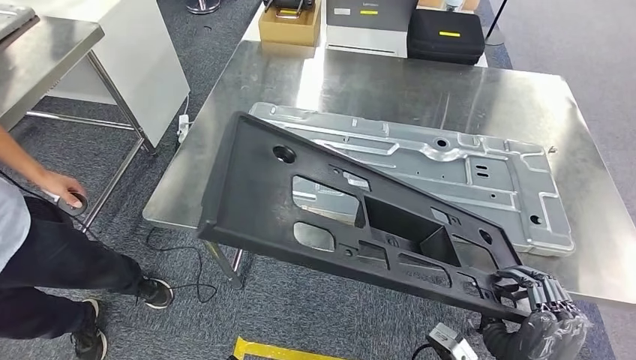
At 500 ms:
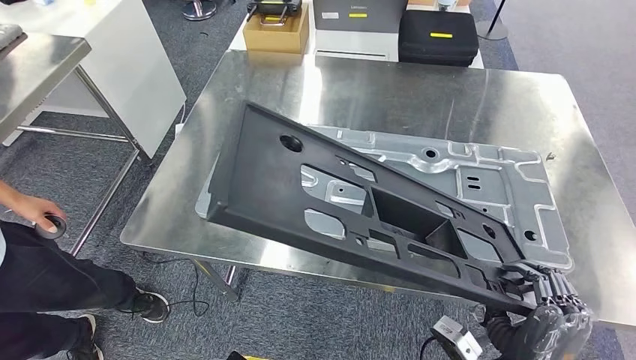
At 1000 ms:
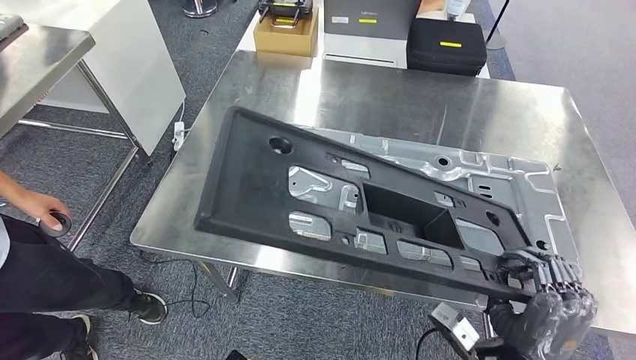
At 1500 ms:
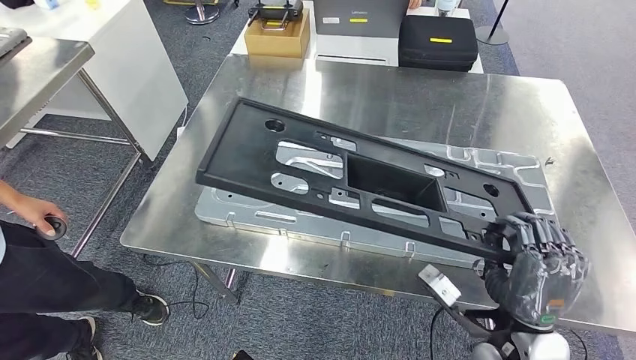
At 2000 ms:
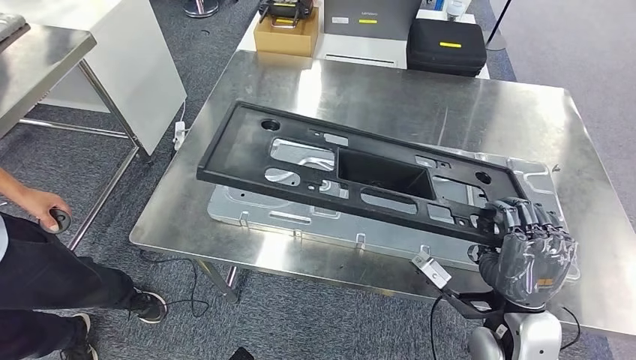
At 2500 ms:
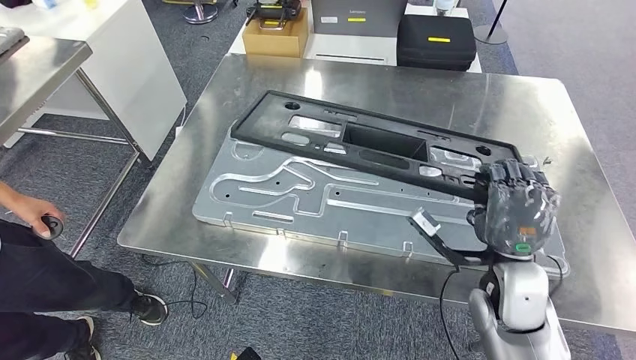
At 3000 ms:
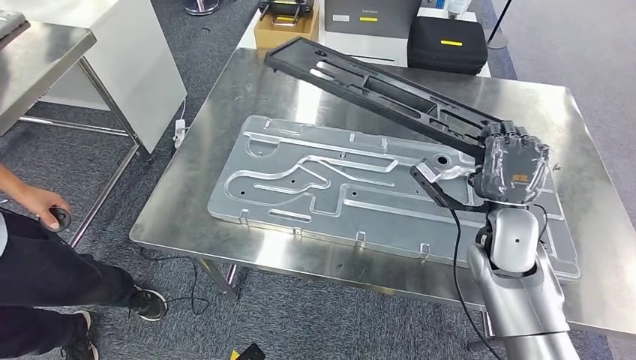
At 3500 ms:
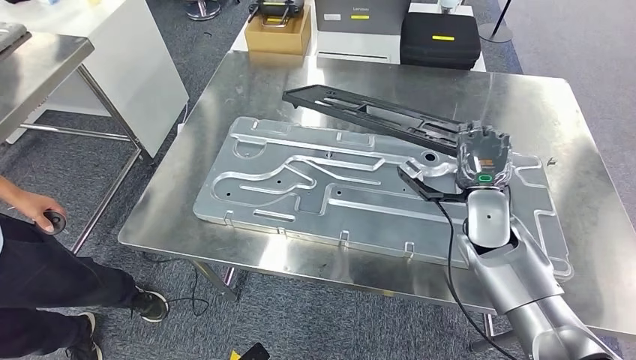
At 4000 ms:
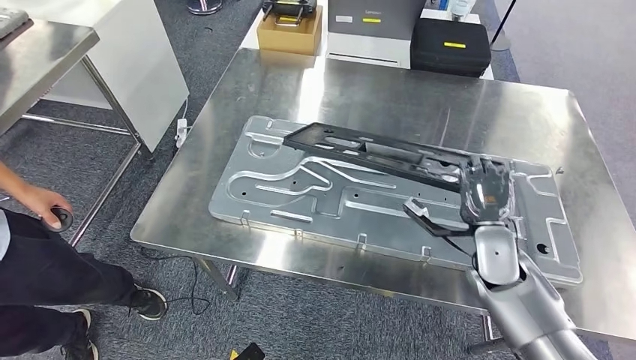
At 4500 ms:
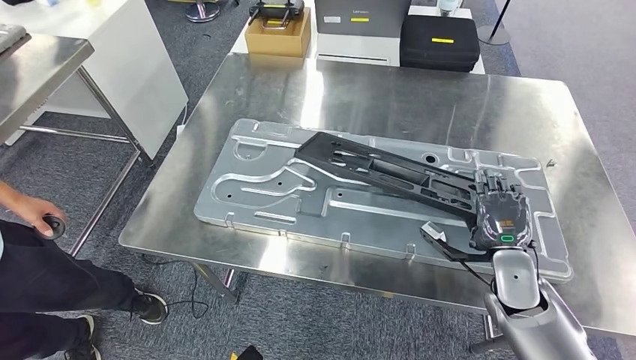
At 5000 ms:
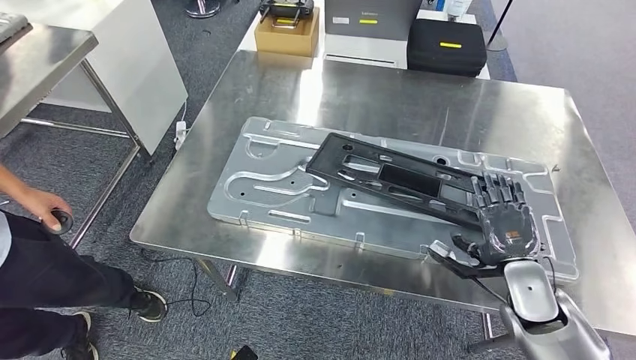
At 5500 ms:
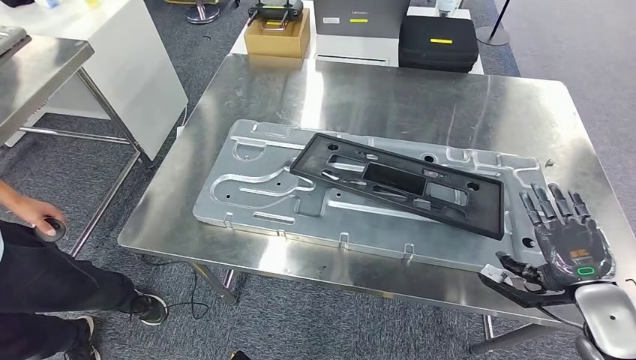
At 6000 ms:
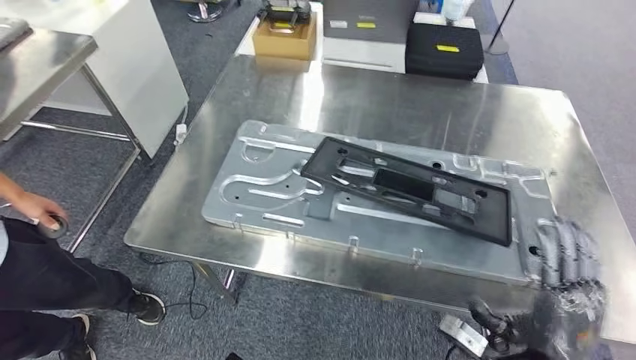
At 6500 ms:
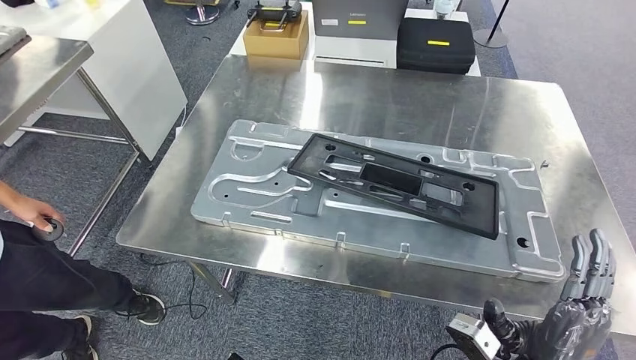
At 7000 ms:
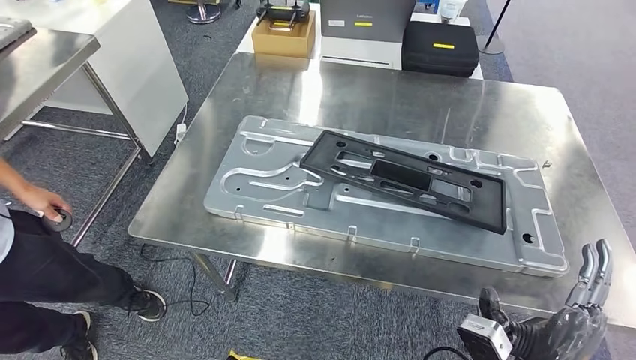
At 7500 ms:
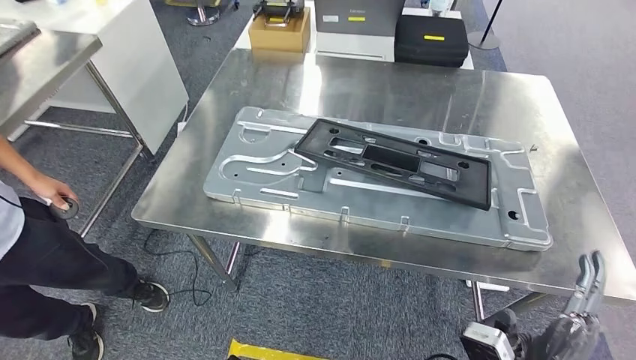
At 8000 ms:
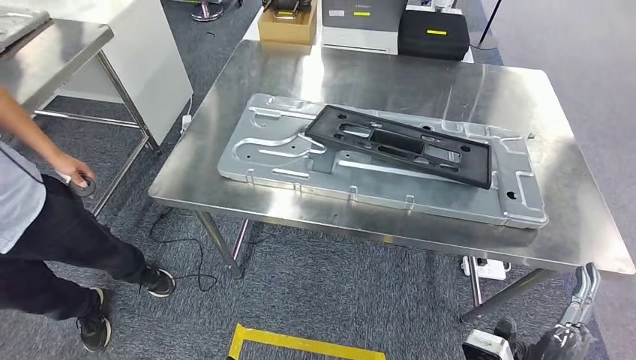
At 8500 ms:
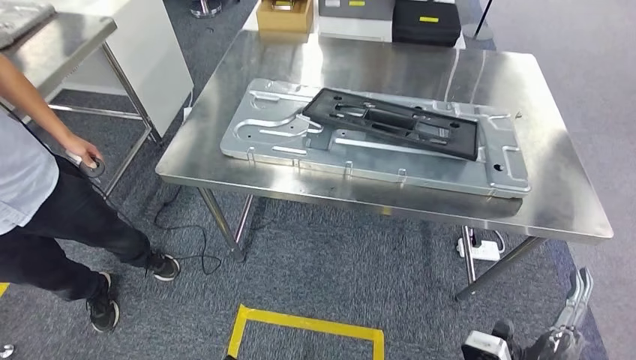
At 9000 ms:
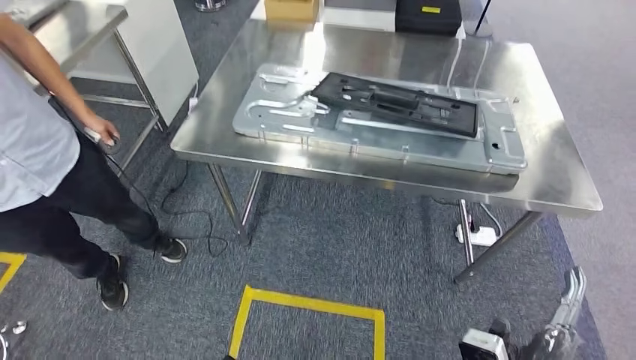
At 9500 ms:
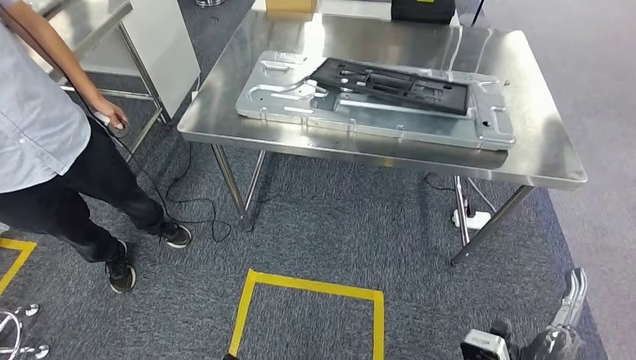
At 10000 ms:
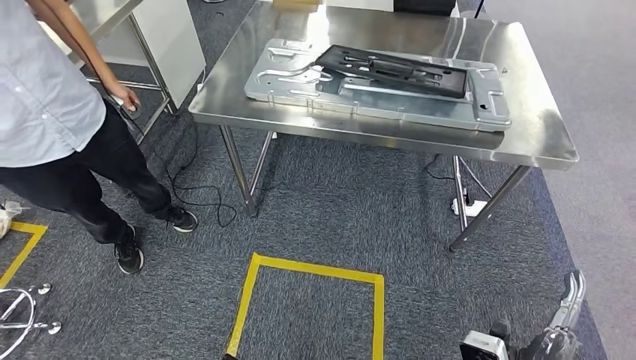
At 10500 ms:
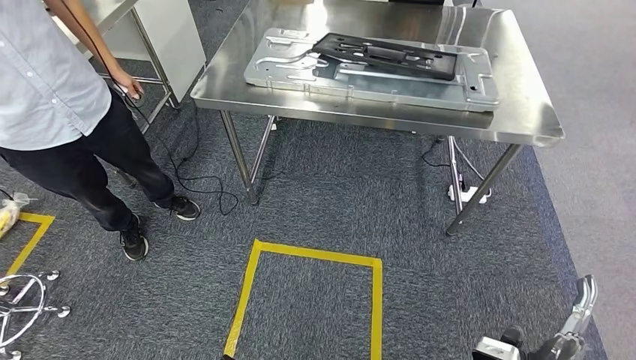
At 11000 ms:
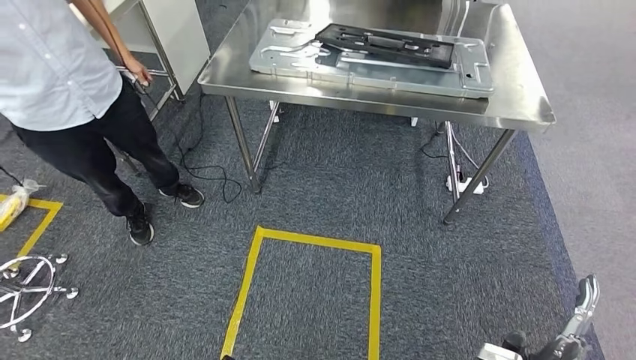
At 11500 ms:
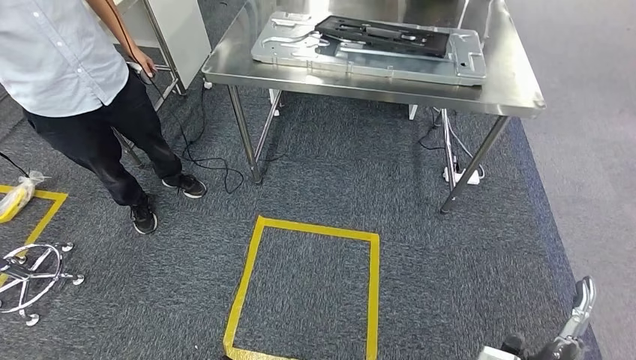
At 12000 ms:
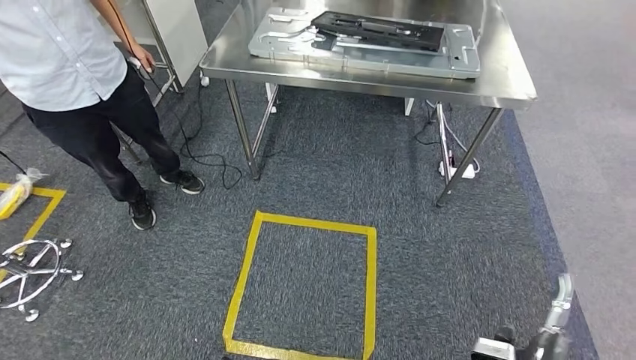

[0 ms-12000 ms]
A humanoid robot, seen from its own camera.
Step, 2000 ms to 6000 ms: Insert the large material into the corresponding slot on the workbench.

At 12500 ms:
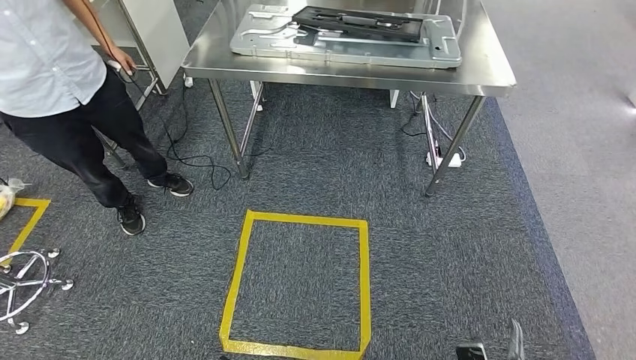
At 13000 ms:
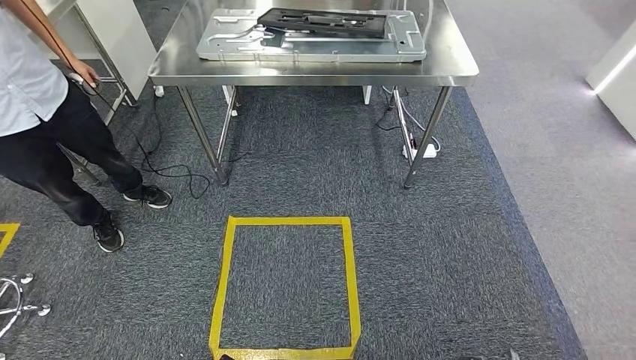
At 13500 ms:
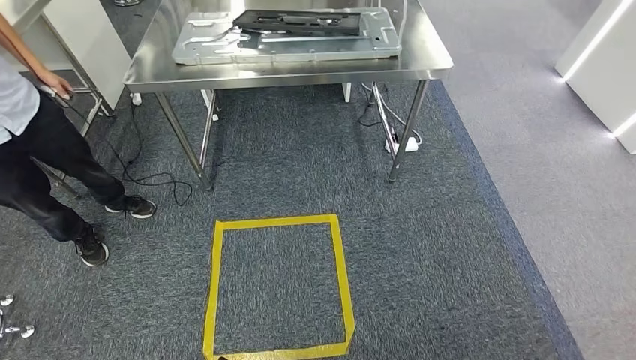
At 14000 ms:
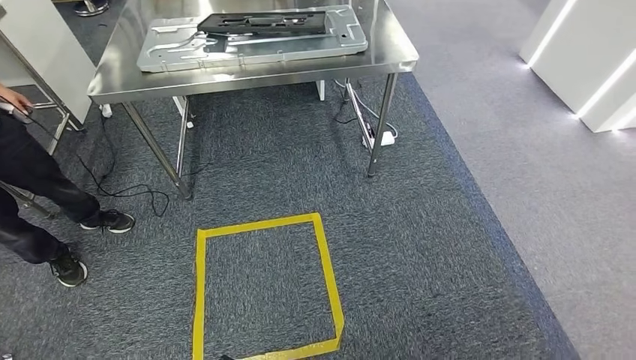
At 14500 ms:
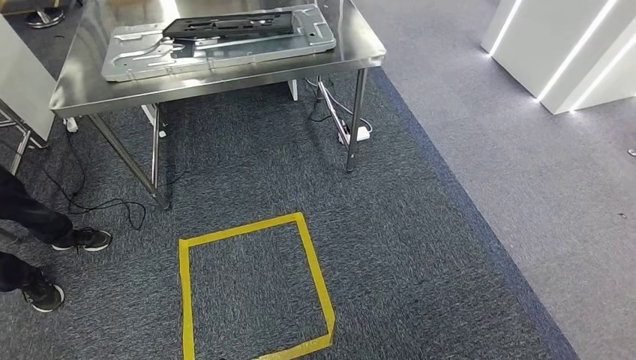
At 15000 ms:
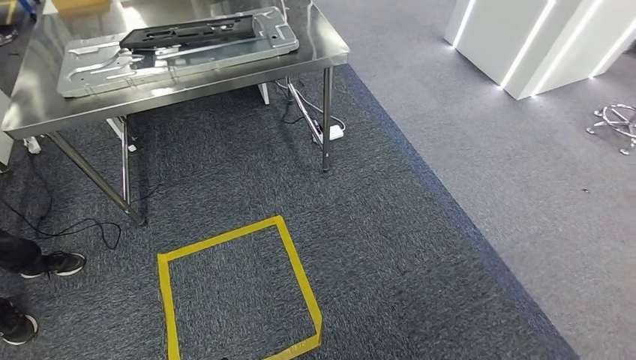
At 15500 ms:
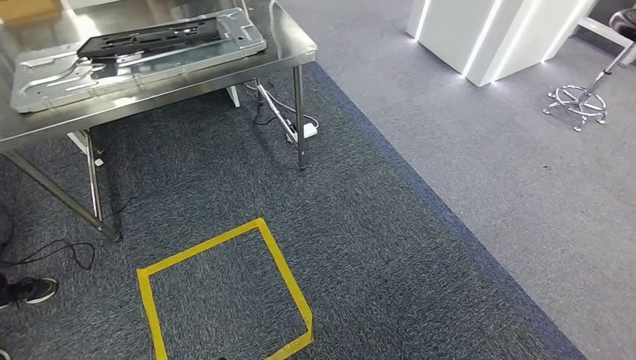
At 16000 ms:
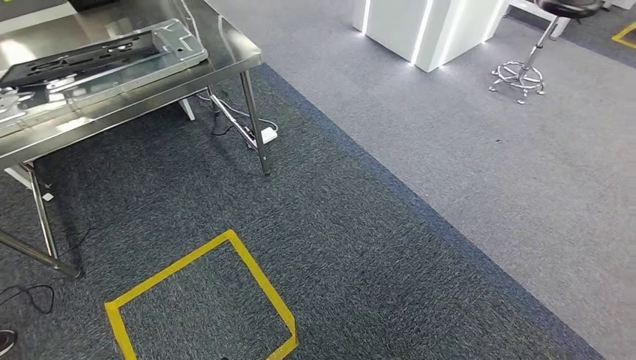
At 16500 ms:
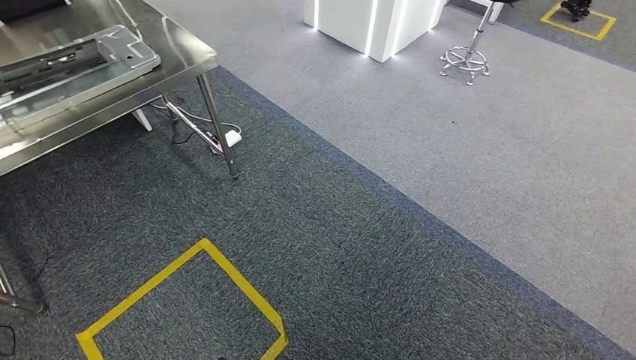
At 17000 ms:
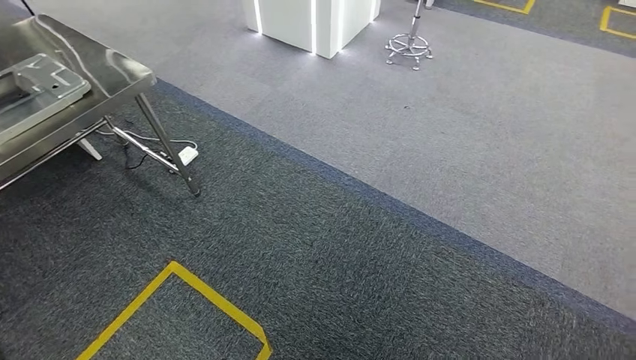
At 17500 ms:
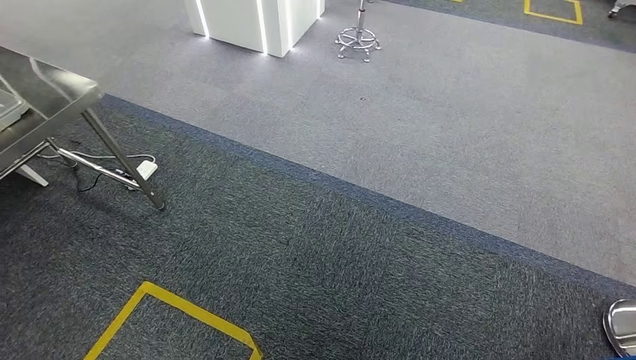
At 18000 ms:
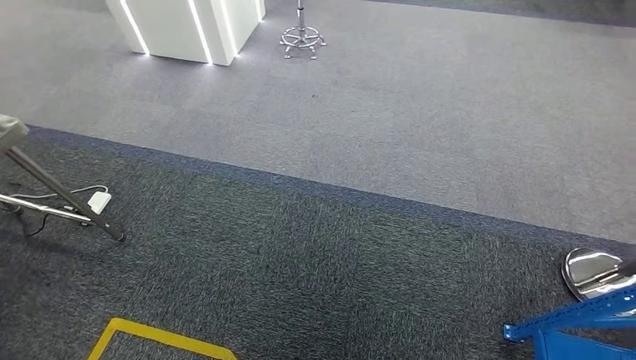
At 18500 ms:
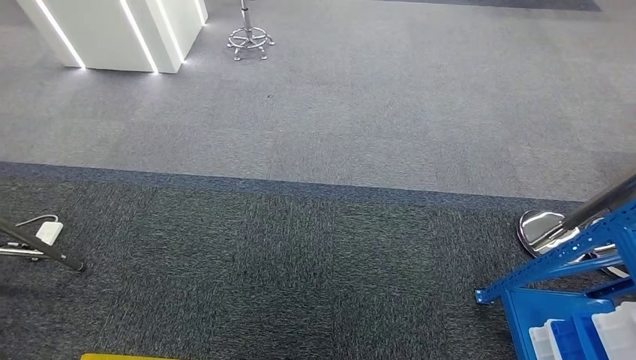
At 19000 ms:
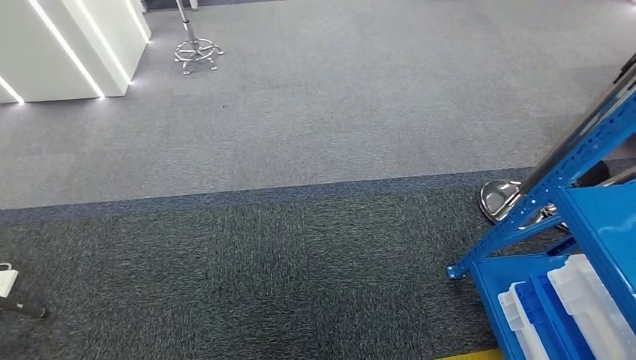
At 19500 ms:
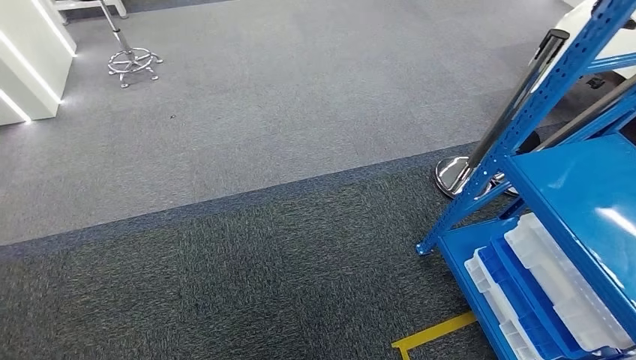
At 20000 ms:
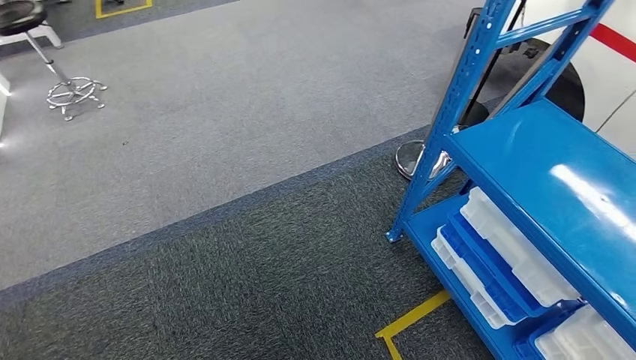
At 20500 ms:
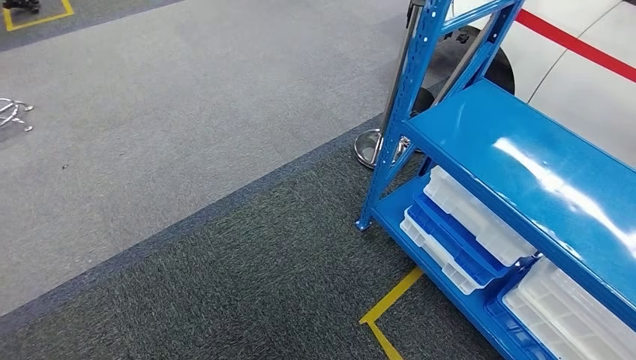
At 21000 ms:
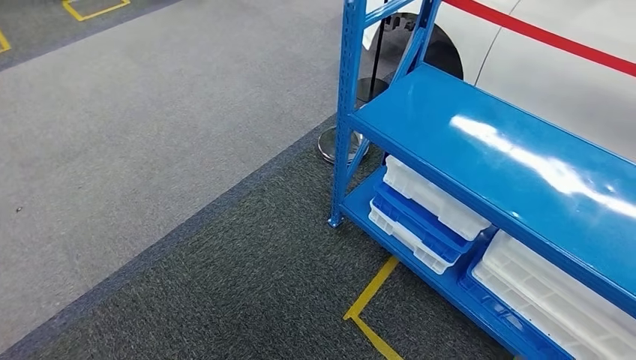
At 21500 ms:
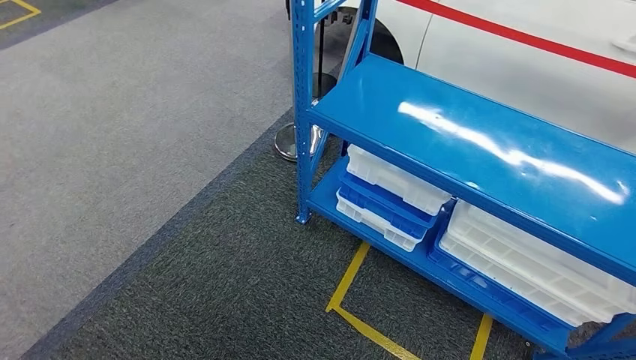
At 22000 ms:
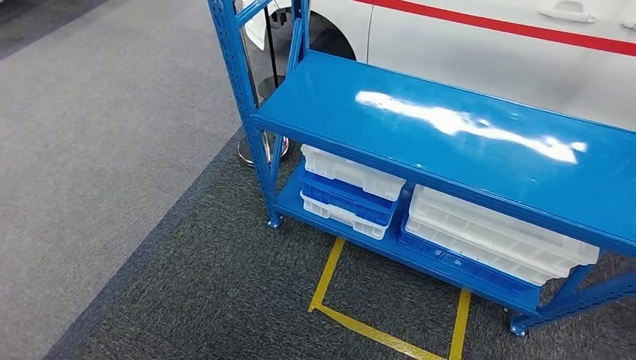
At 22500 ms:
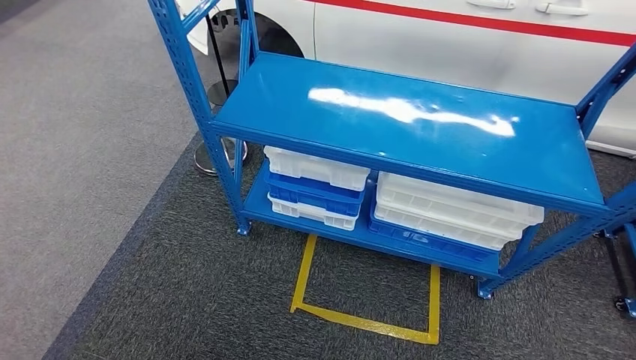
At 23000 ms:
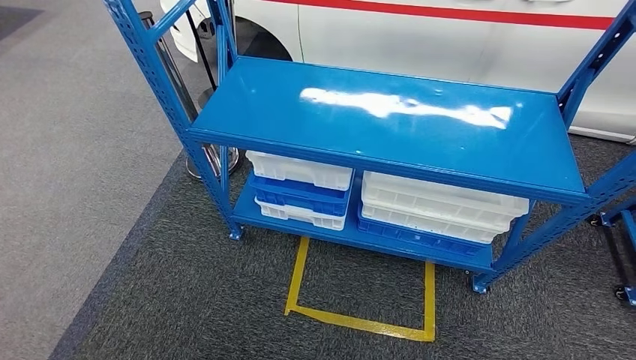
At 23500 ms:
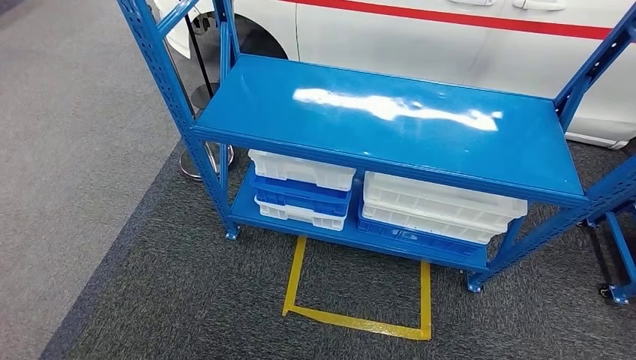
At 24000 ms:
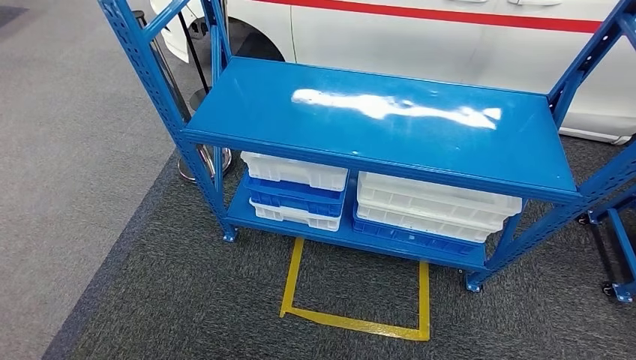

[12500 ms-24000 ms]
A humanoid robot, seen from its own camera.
Step, 12500 ms to 24000 ms: Return to the initial position at the shelf.